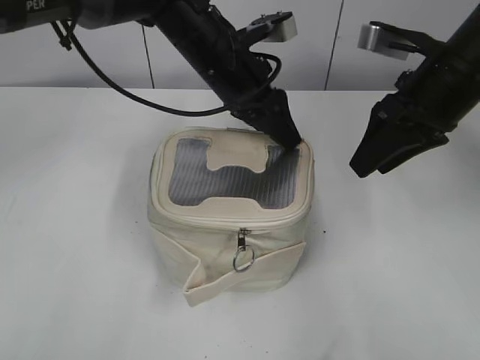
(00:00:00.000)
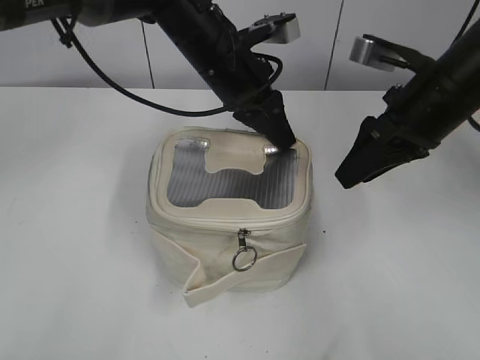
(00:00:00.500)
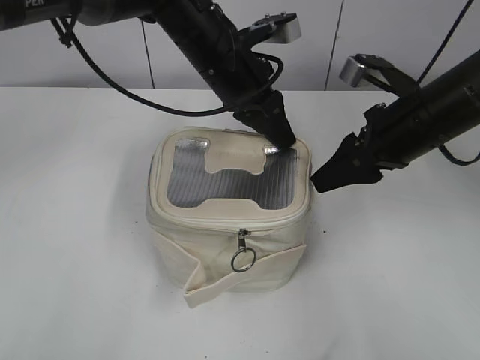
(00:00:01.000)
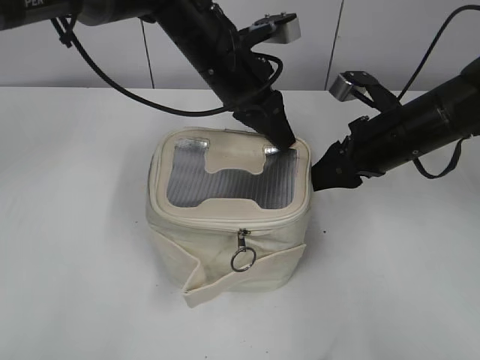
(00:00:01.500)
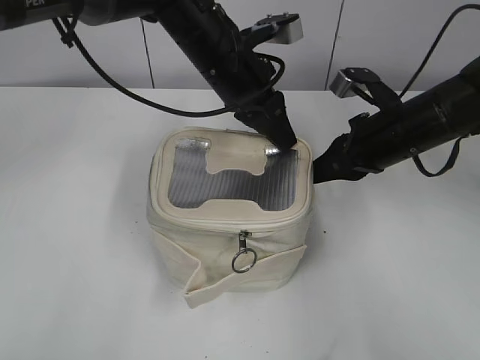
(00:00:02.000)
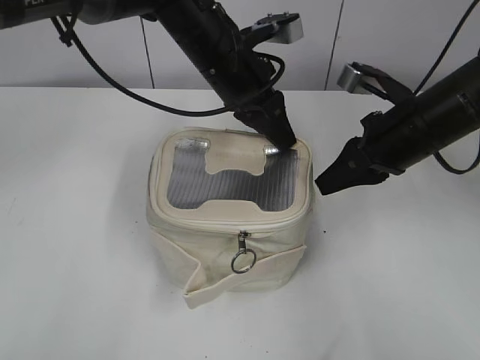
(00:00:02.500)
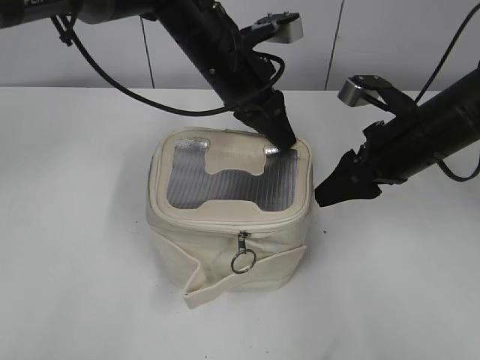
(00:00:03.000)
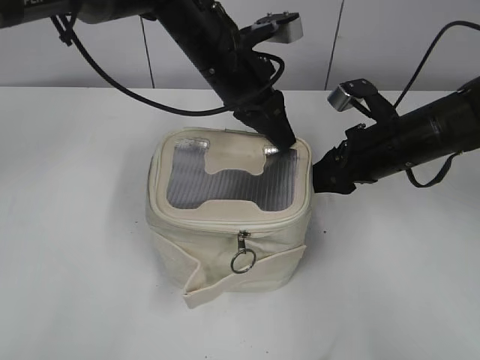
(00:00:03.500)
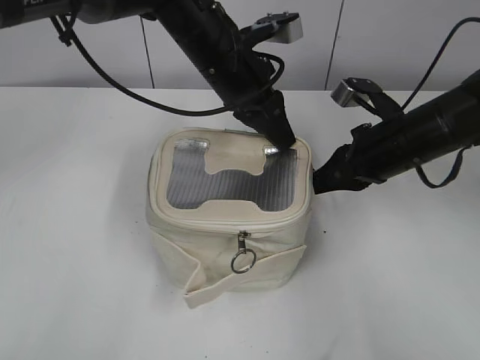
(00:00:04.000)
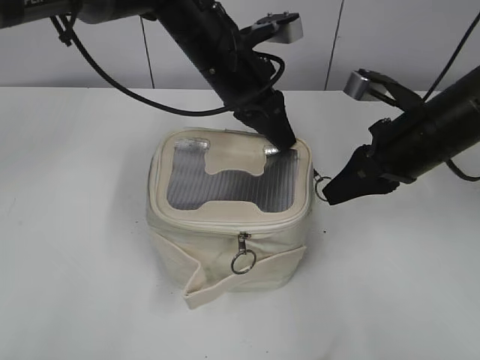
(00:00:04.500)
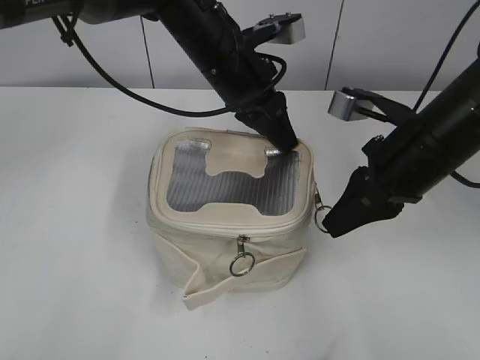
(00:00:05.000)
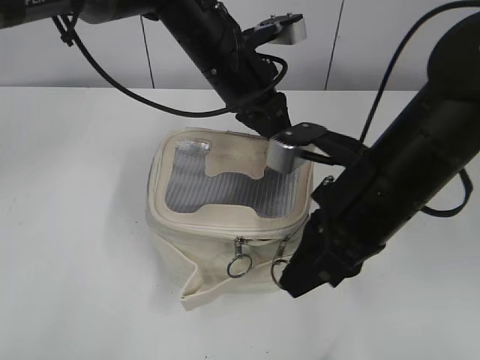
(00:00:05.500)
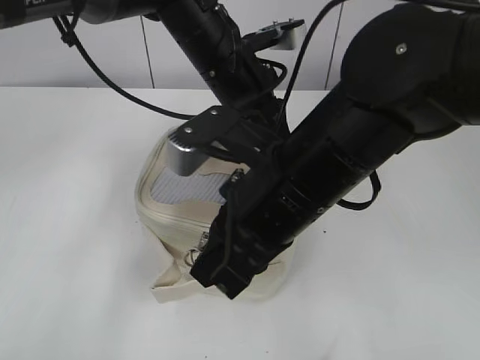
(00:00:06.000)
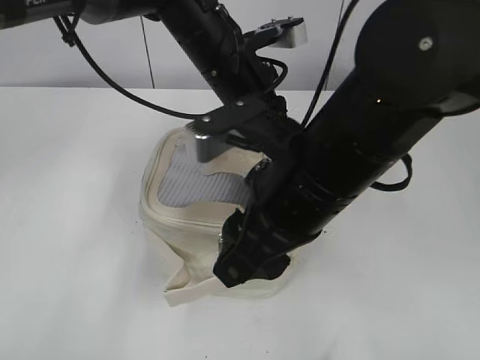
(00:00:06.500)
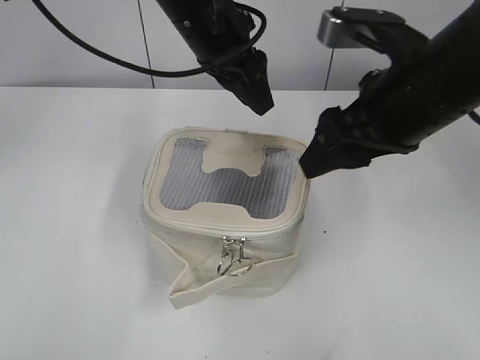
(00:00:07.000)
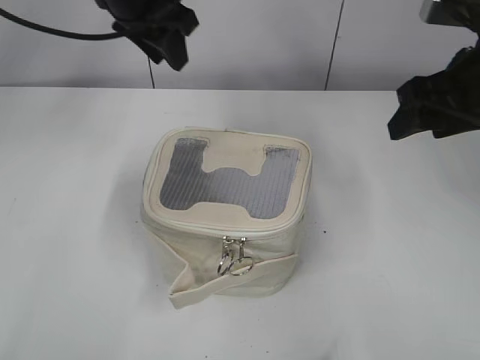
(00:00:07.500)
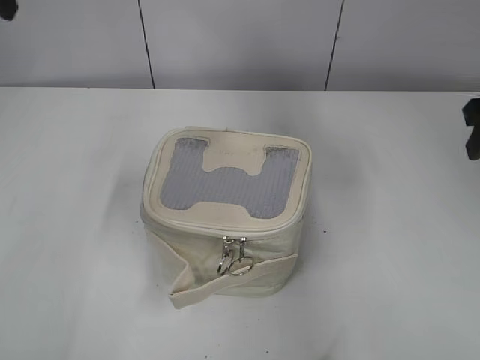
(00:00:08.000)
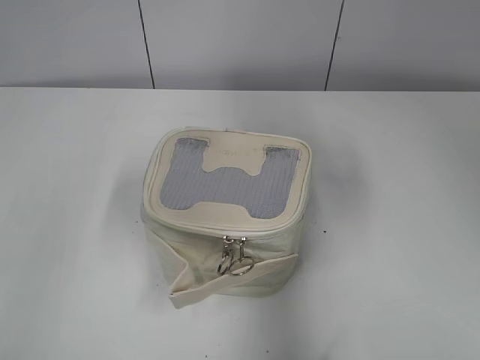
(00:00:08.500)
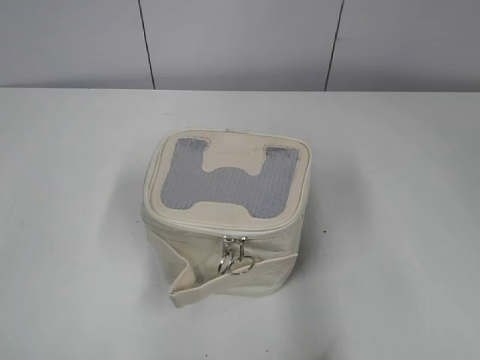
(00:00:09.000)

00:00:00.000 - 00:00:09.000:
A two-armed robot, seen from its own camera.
Step, 00:00:00.000 - 00:00:06.500: Zip up the bag with your right hand.
00:00:00.000 - 00:00:02.000: The left gripper closes. The right gripper moves downward, roughly 10 cm, and closes up.
00:00:02.000 - 00:00:04.500: The right gripper opens, then closes again.
00:00:04.500 - 00:00:07.000: The right gripper travels upward, to the left and backward by some 10 cm, and opens; the left gripper shifts some 5 cm upward, and opens up.
00:00:07.000 - 00:00:09.000: The left gripper moves backward and to the left, approximately 50 cm. Meanwhile the right gripper goes roughly 25 cm to the right and backward.

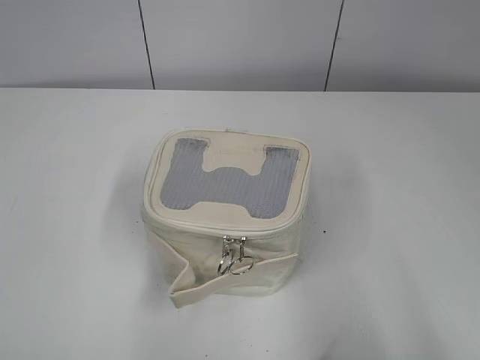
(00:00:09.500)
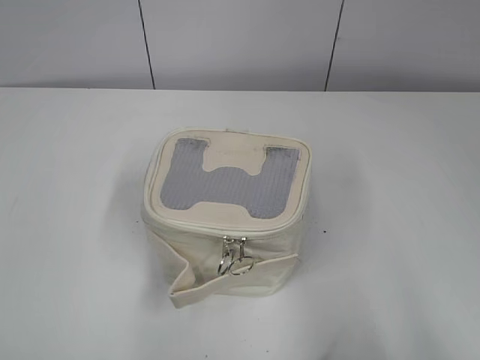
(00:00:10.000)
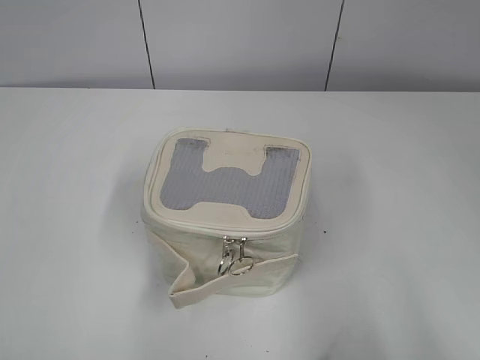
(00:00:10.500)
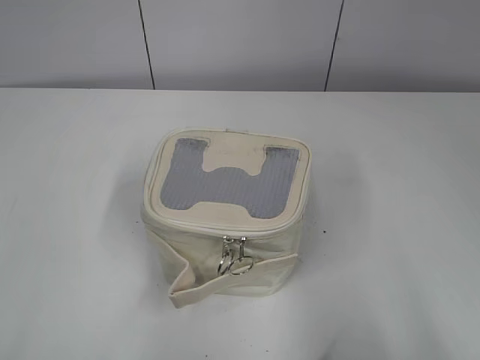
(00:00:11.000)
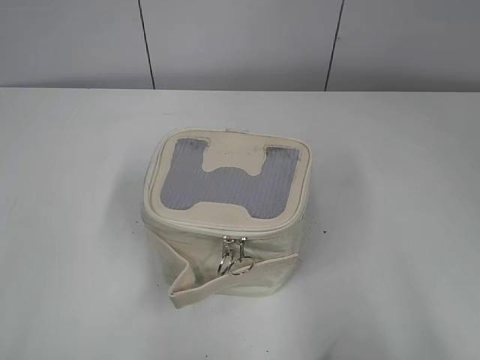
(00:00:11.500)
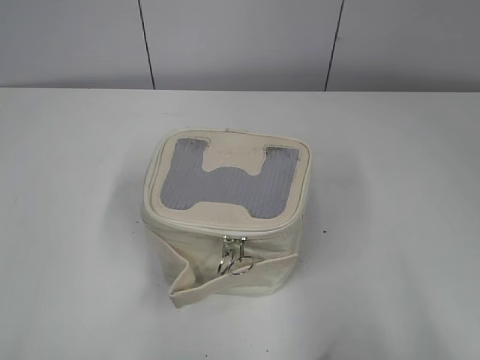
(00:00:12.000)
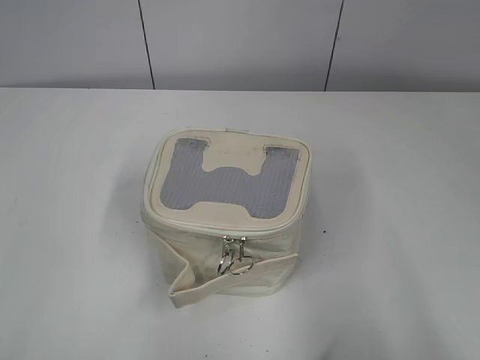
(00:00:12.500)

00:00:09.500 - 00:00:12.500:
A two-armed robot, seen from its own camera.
00:00:11.000 - 00:00:12.500: Neither gripper changes place.
